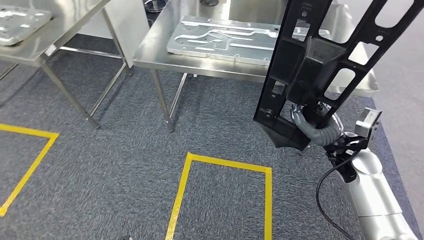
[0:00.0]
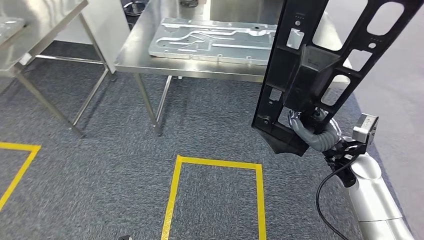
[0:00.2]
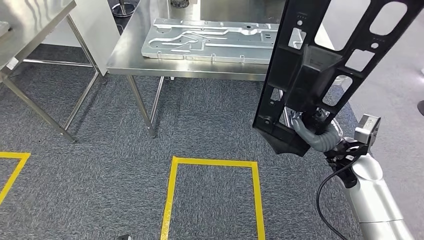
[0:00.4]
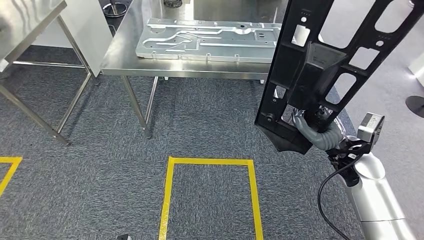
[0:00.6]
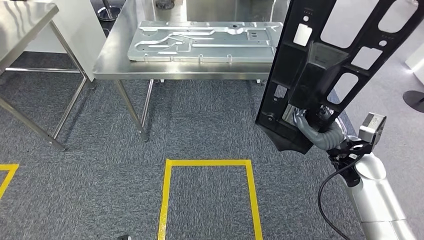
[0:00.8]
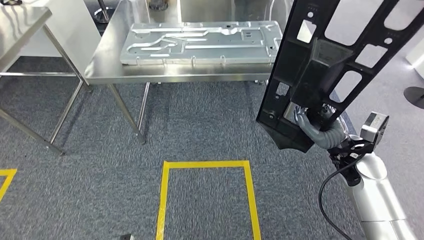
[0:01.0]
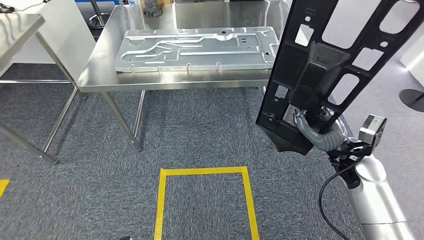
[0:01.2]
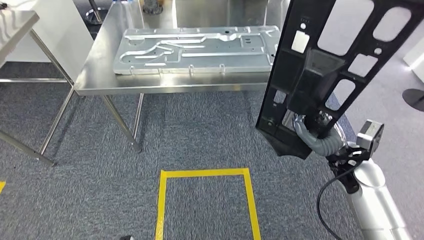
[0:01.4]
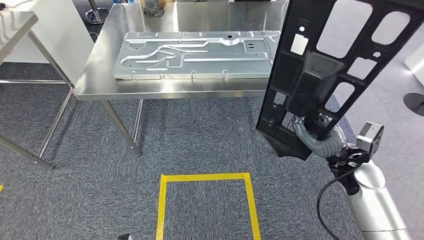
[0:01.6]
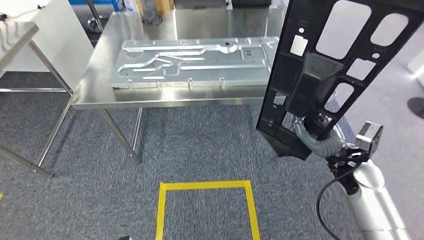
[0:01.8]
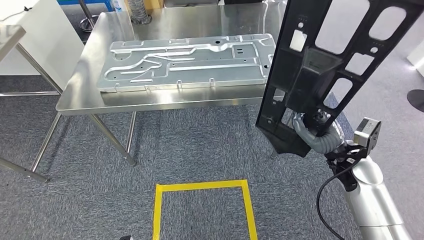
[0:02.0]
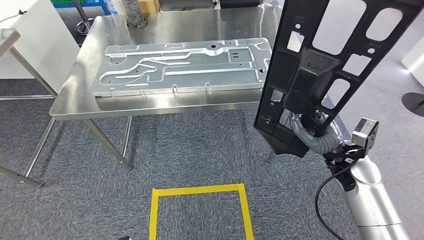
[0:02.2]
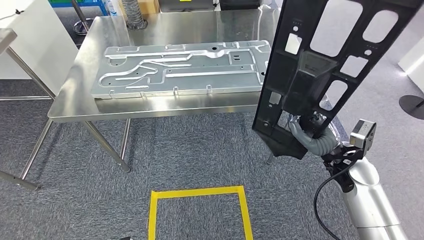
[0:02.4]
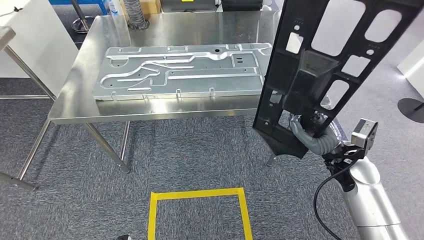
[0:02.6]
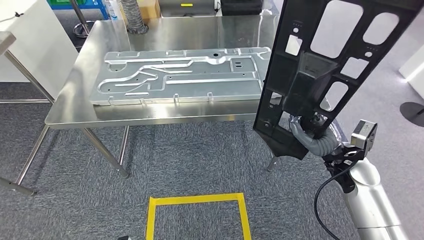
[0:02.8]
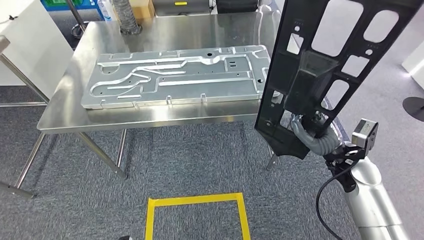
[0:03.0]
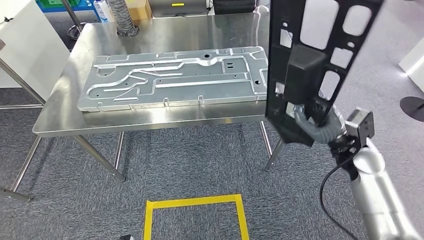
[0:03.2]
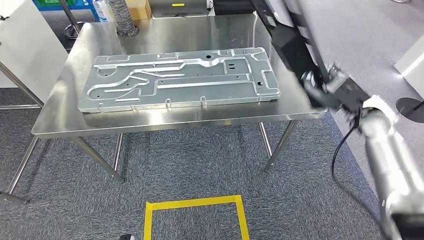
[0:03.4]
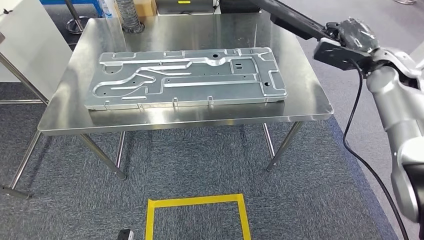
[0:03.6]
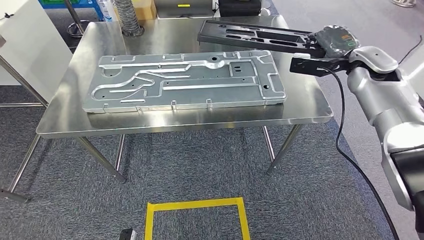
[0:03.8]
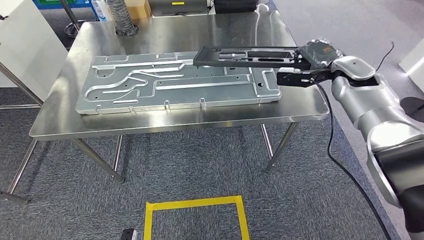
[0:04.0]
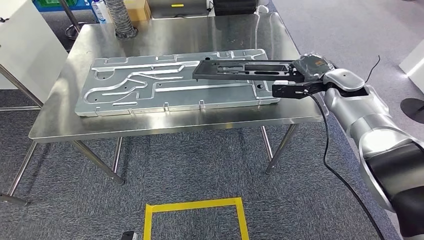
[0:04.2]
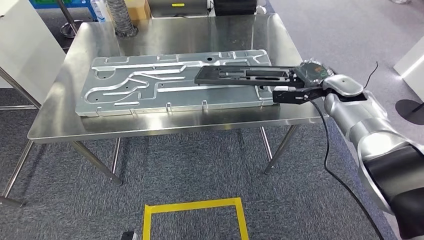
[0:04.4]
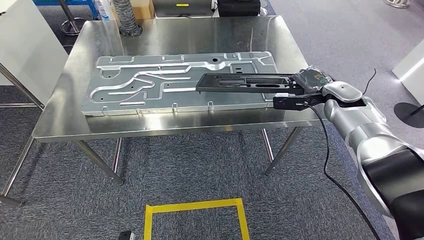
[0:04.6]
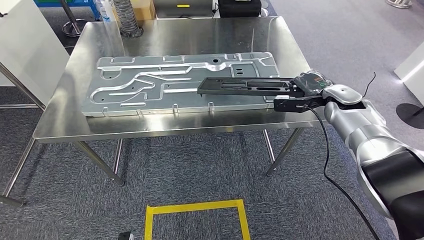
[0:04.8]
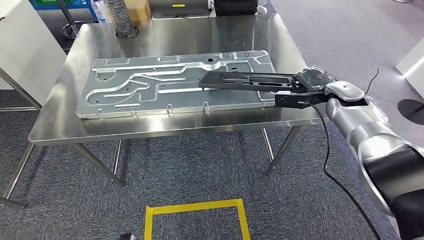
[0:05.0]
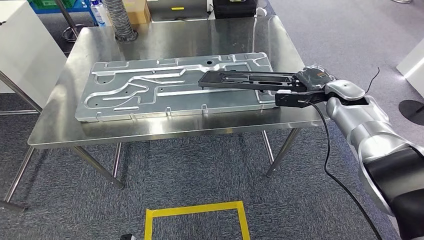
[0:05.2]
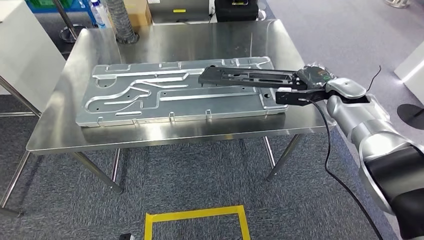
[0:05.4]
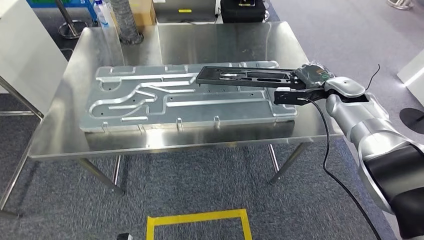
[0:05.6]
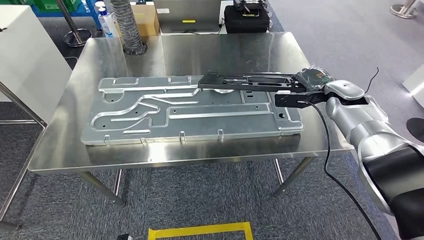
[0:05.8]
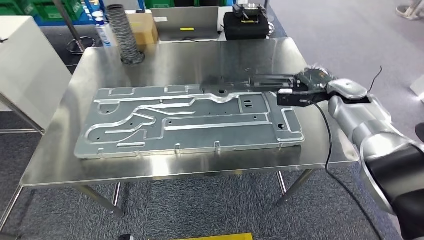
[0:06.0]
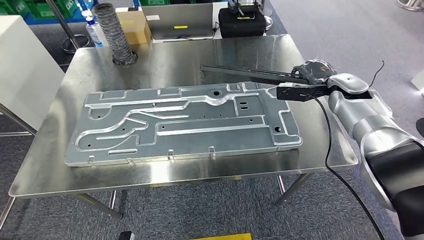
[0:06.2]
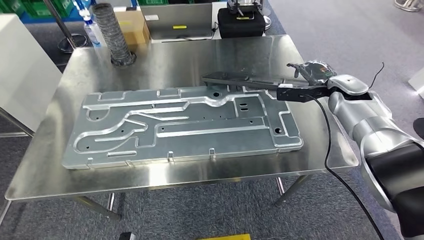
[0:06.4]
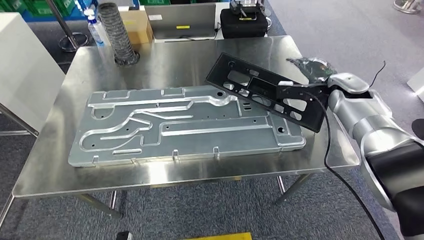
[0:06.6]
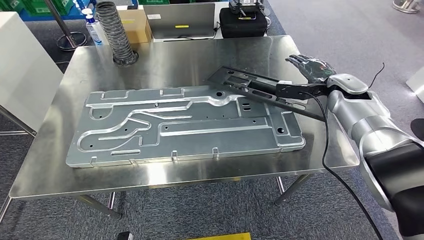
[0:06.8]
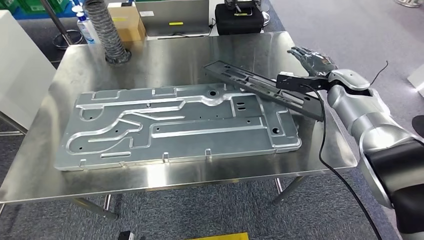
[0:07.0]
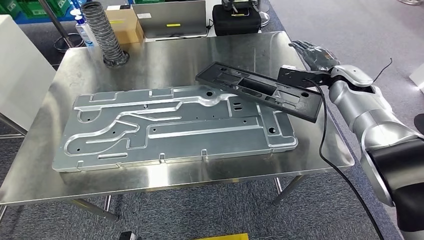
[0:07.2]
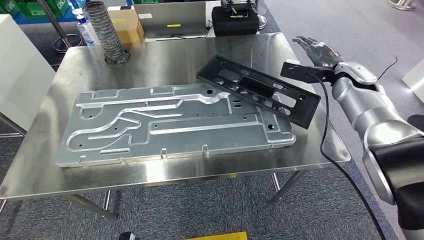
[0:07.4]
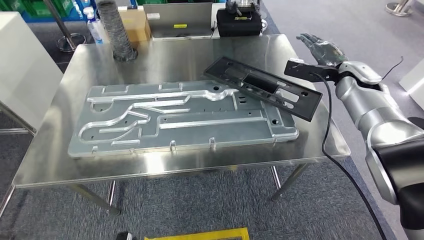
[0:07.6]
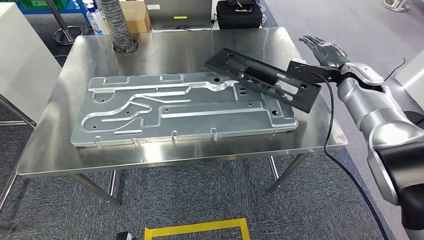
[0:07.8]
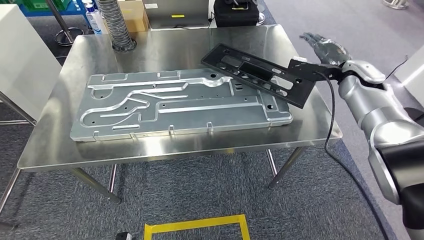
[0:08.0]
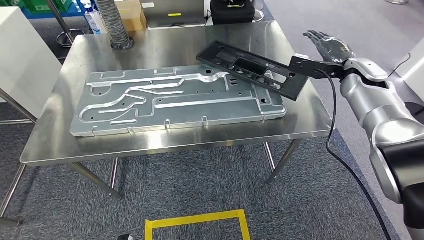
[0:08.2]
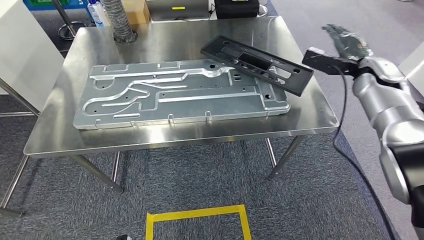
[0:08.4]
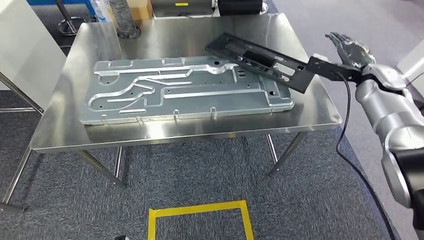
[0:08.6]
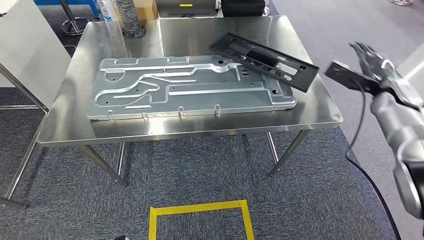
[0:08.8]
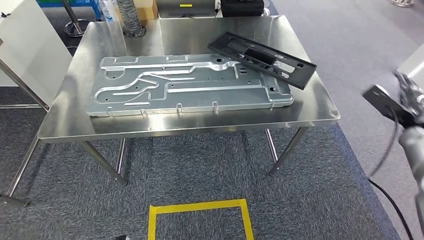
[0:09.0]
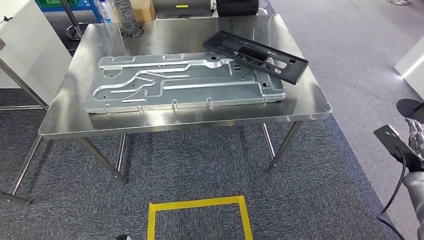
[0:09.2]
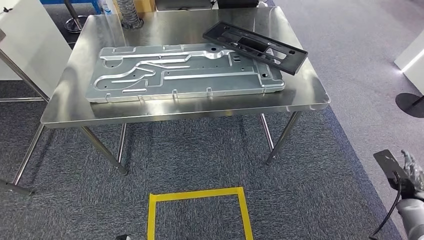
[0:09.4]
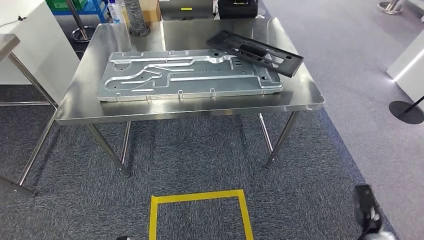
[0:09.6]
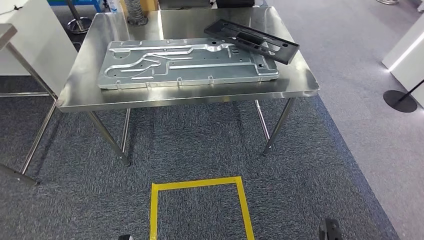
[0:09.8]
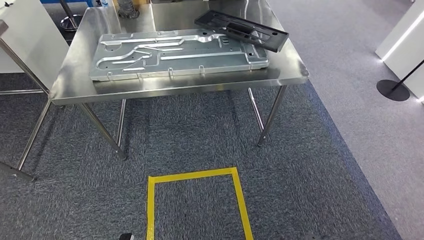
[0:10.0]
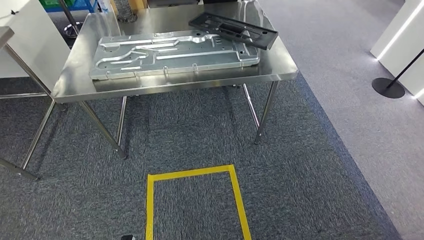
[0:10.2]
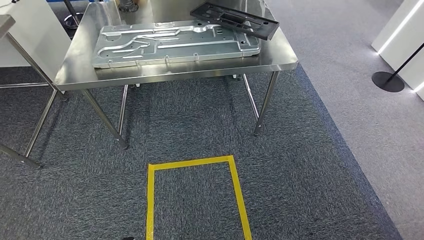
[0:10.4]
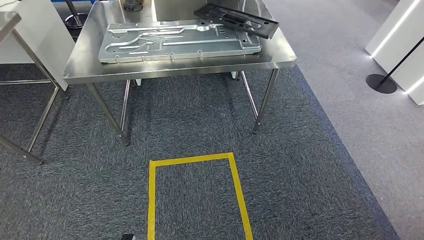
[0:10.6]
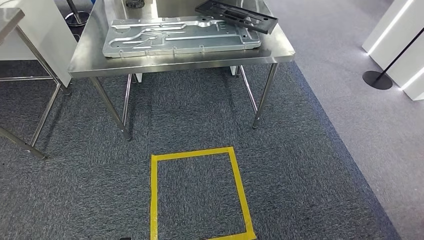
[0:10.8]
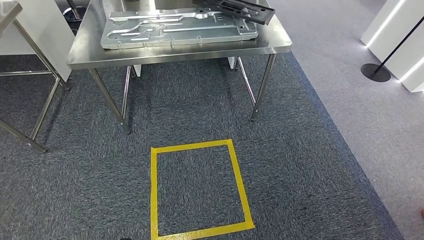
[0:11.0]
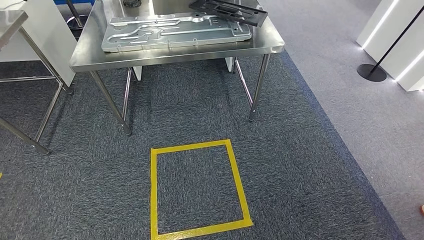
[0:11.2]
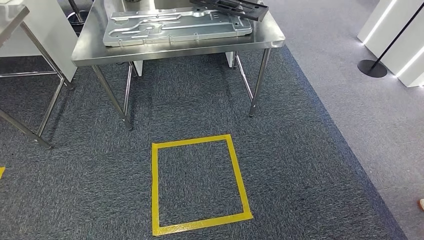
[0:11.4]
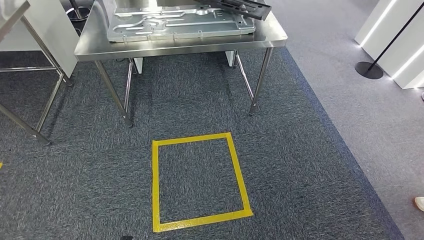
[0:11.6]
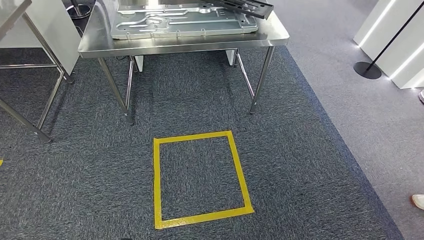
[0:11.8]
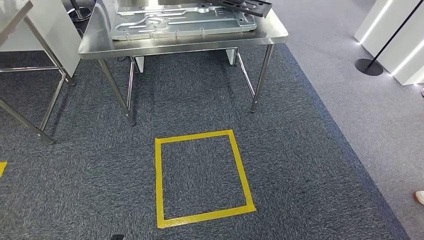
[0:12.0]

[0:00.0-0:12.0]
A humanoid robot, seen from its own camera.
Step, 0:02.6 to 0:07.0: Insert the large parts into the corresponding slots on the workbench.
Step, 0:08.4 to 0:12.0: Return to the initial position at the shelf.
